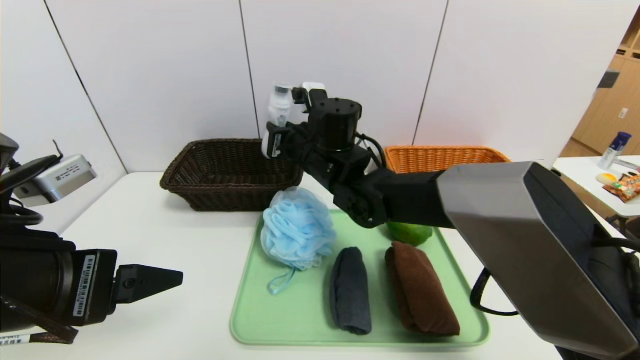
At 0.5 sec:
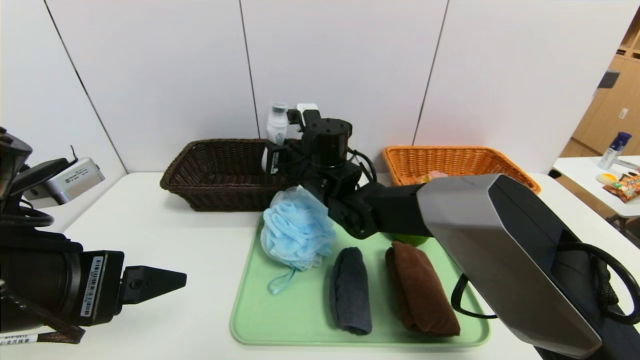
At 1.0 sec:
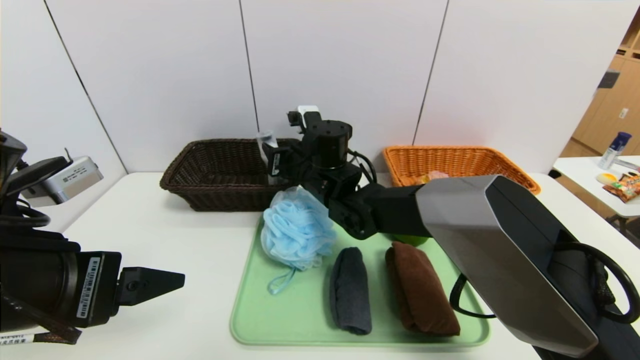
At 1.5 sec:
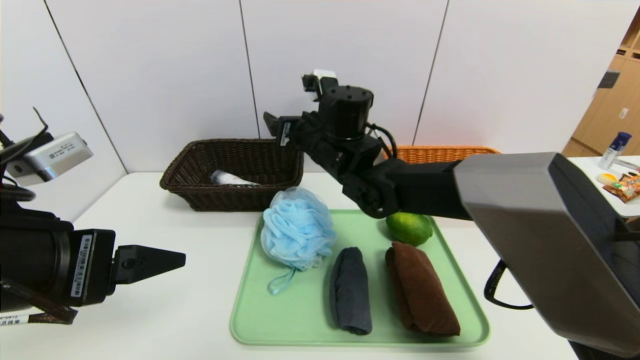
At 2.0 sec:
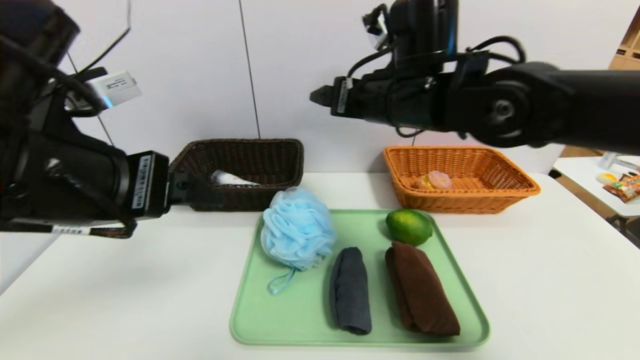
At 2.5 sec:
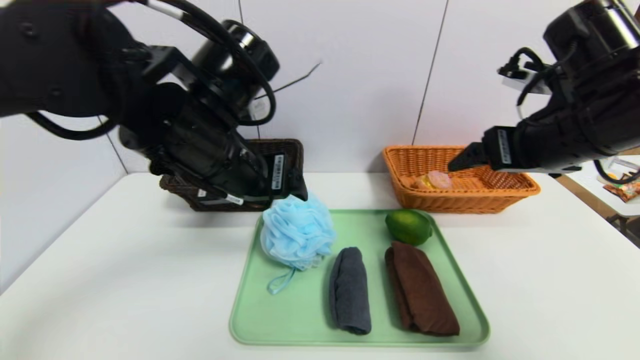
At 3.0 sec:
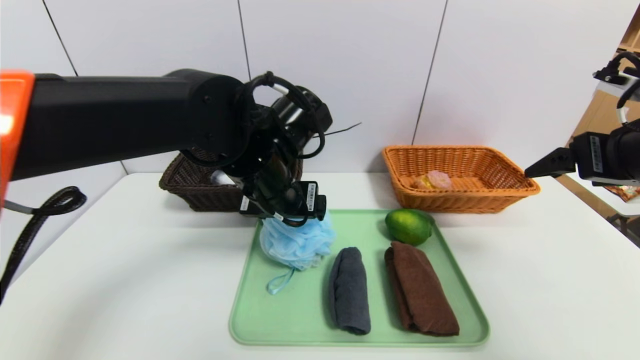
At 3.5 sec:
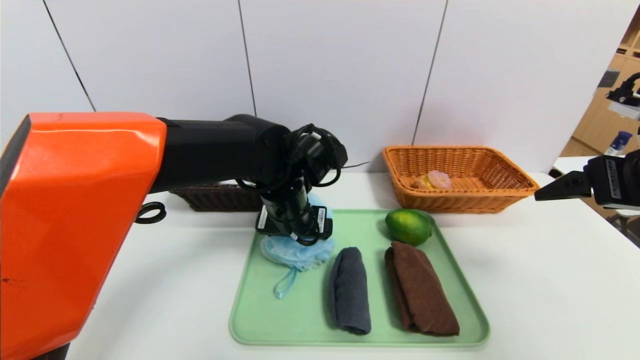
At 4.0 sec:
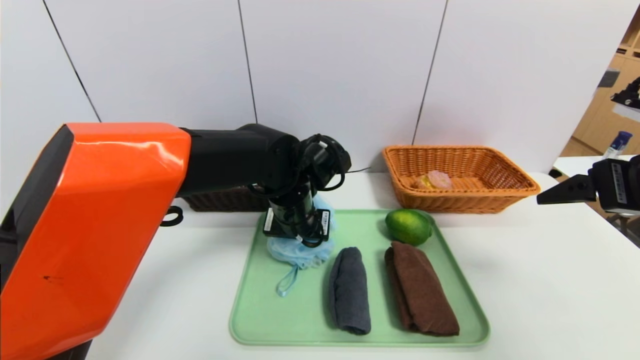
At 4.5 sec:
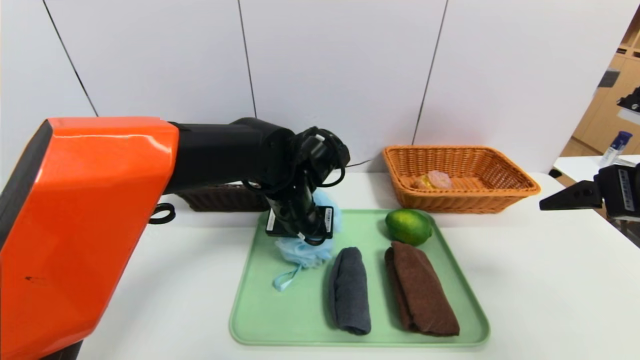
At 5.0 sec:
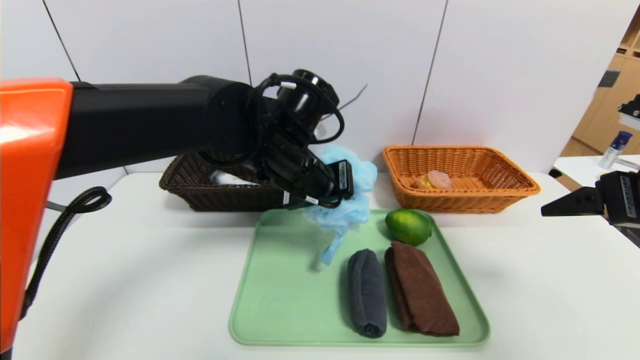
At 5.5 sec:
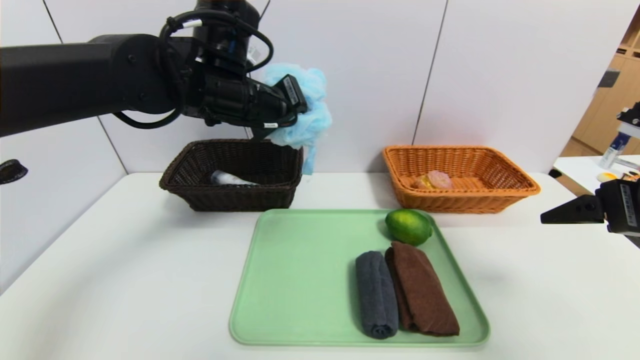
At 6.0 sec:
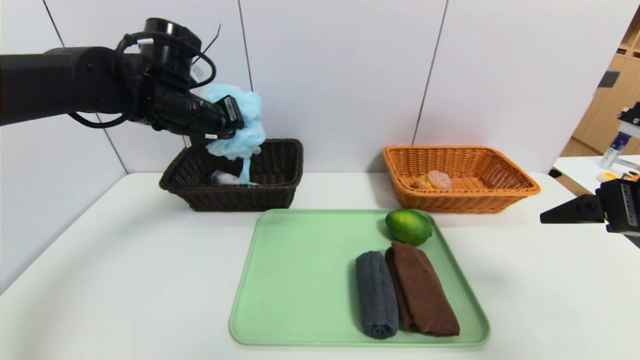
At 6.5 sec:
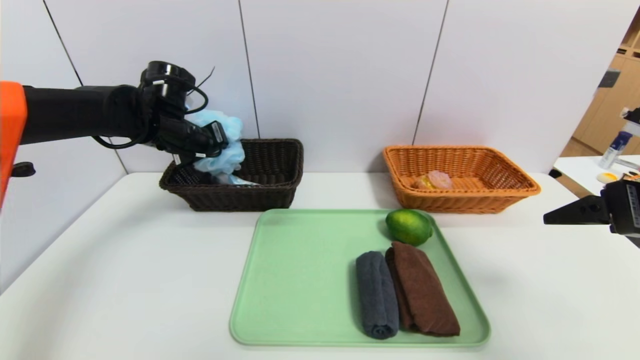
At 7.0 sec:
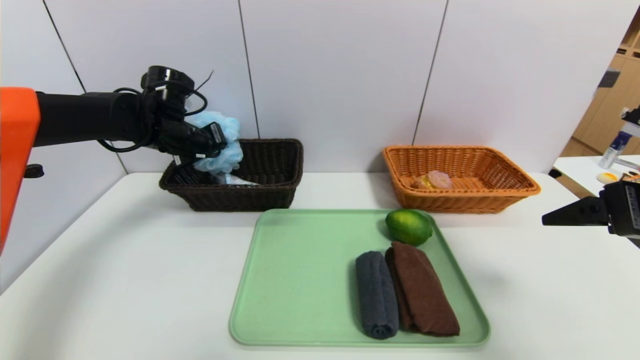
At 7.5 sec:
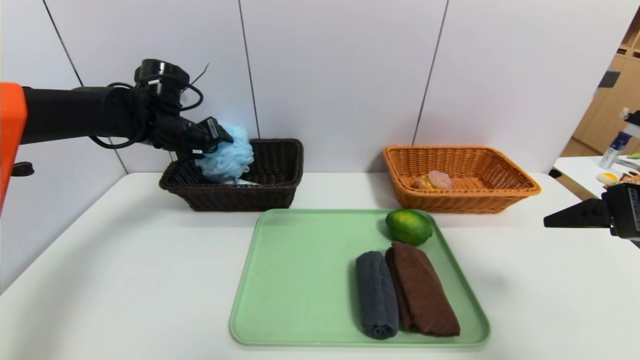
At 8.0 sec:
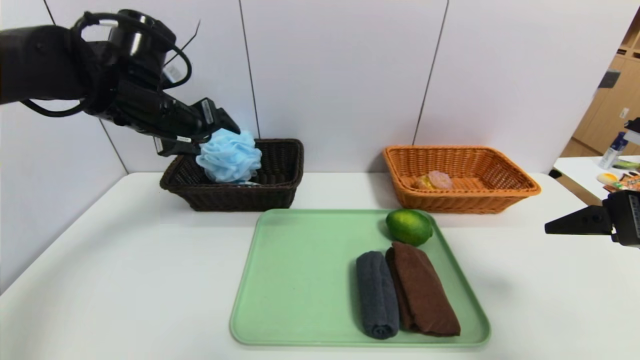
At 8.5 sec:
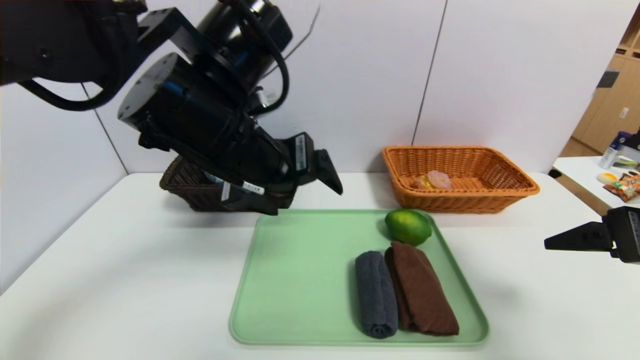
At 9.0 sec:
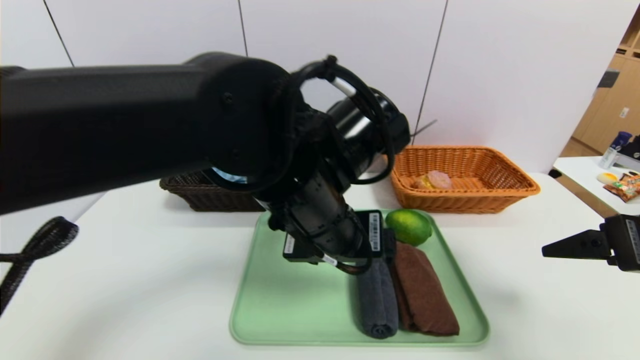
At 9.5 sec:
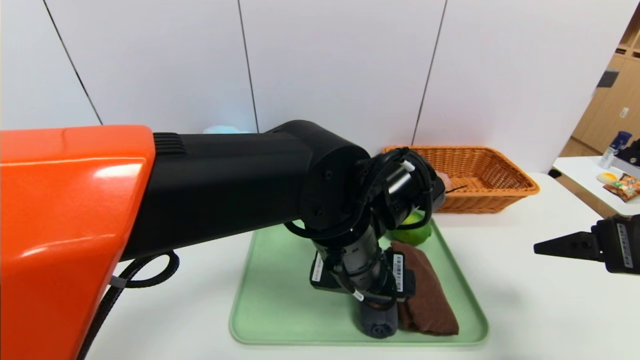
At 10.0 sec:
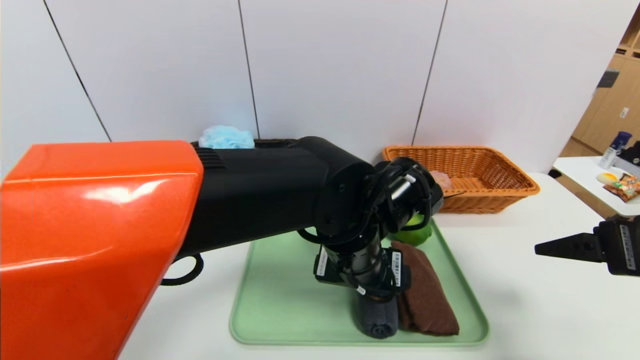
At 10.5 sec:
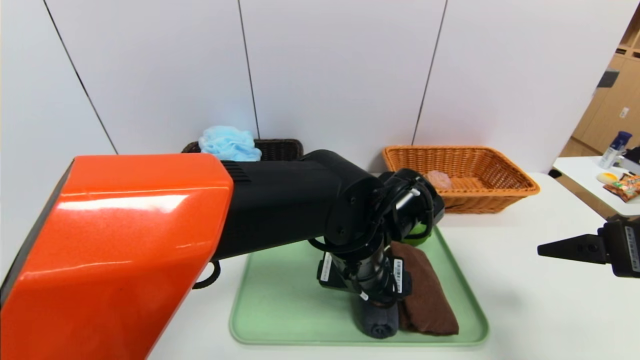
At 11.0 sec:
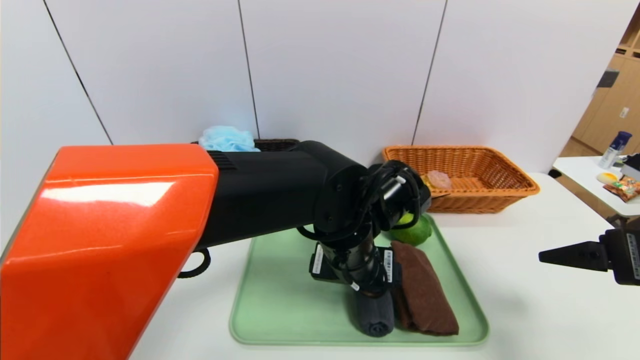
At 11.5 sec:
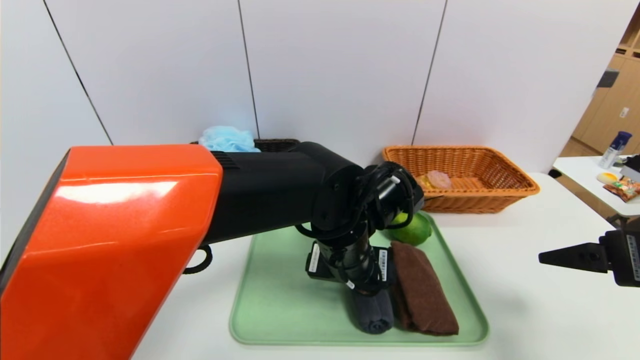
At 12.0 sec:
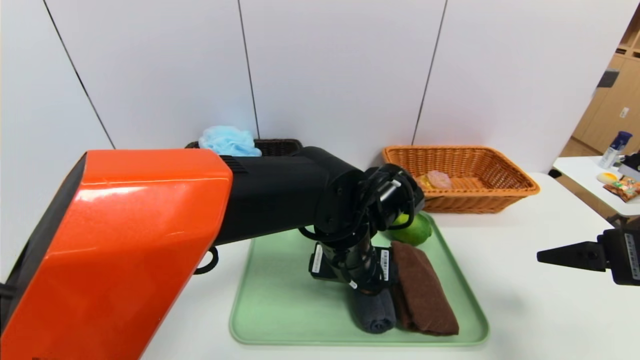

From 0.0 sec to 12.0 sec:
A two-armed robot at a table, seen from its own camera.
Task of the whole recording: place the food in the right basket with the right gripper, and place the non food items in the left basket with the left gripper.
Step, from 1.5 sec to 7.5 sec: Grasp the shower sphere and put it in the left basket.
From 0.0 sec to 2.0 sec: The right gripper shifts some 15 cm to the right, upward and backward, and opens its fingers; the left gripper goes some 5 cm upward.
From 2.0 sec to 4.0 sec: The left gripper goes approximately 25 cm forward, to the right and downward, while the right gripper is displaced to the right and backward by about 25 cm.
From 4.0 sec to 6.0 sec: The left gripper is displaced to the left and upward by approximately 20 cm, and closes.
From 6.0 sec to 8.0 sec: The left gripper opens its fingers.
From 8.0 sec to 10.0 sec: The left gripper moves to the right, downward and backward, some 30 cm.
From 10.0 sec to 12.0 sec: The grippers stay close to where they were, moving slightly.

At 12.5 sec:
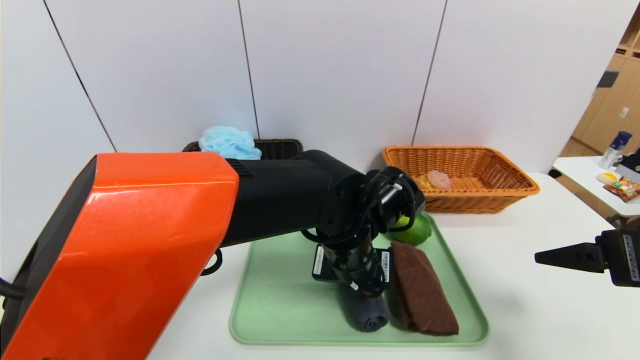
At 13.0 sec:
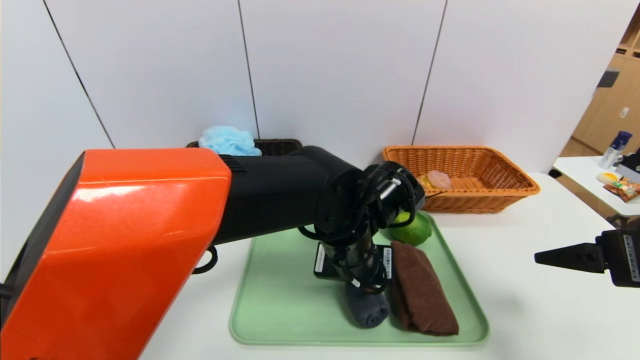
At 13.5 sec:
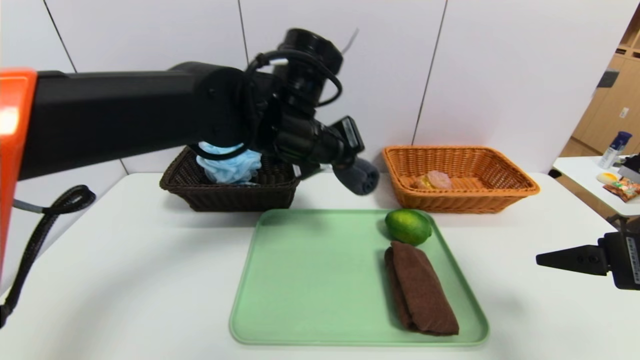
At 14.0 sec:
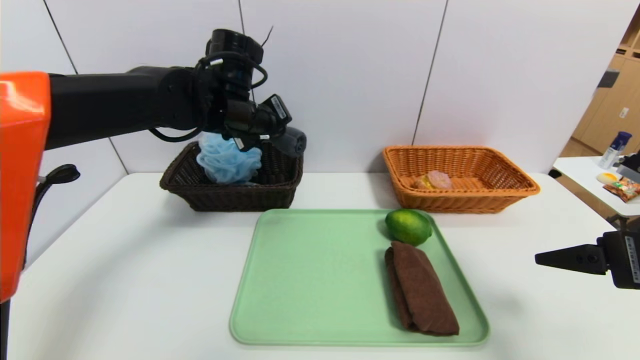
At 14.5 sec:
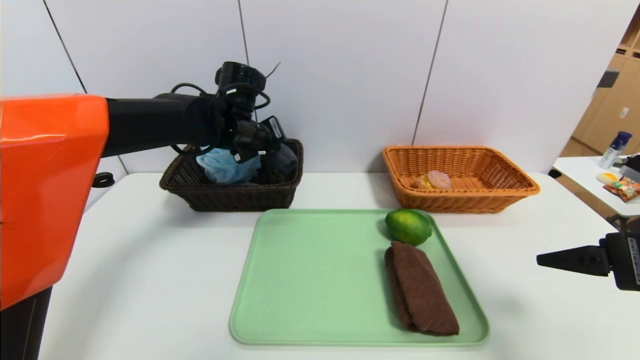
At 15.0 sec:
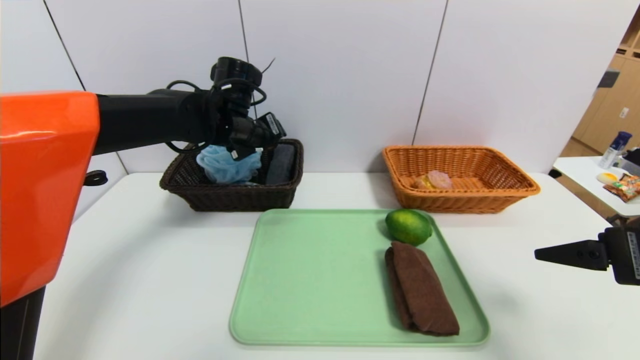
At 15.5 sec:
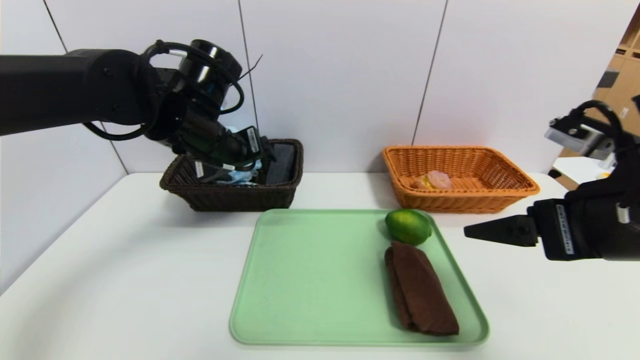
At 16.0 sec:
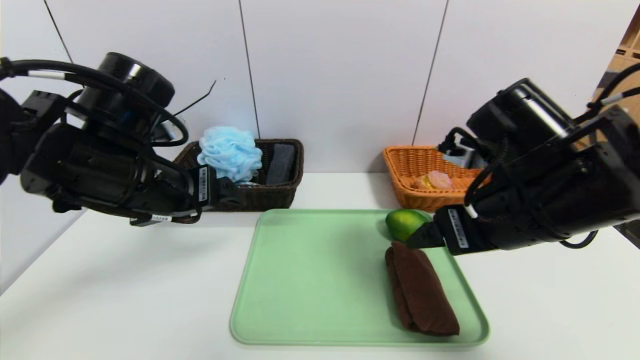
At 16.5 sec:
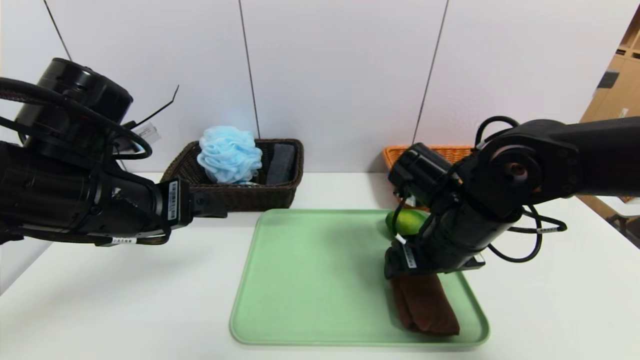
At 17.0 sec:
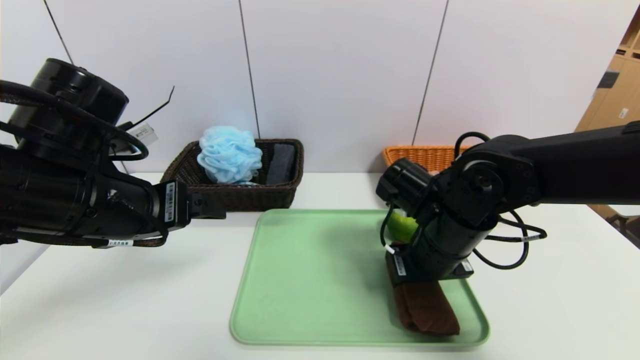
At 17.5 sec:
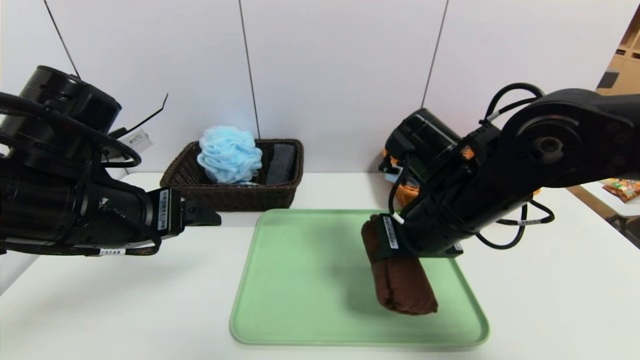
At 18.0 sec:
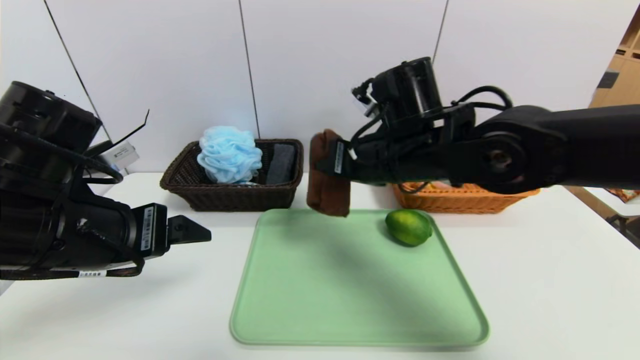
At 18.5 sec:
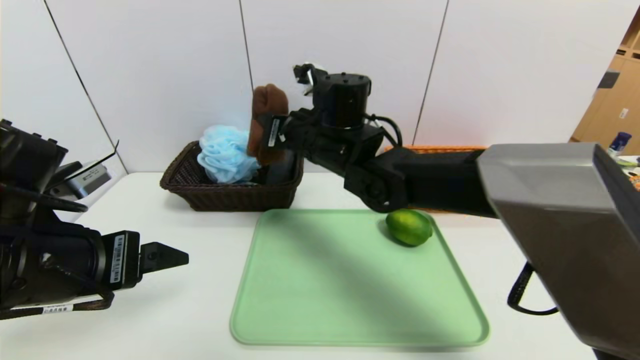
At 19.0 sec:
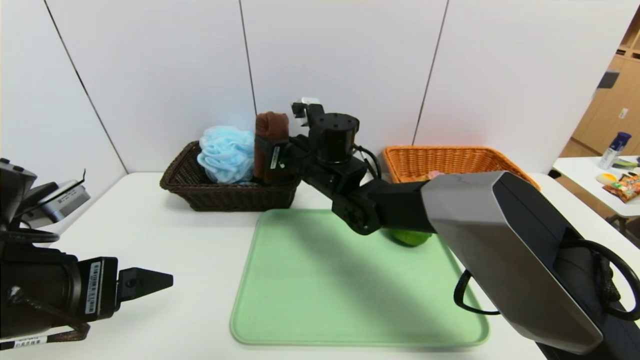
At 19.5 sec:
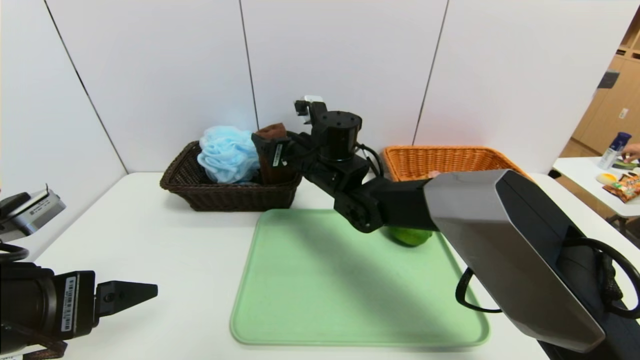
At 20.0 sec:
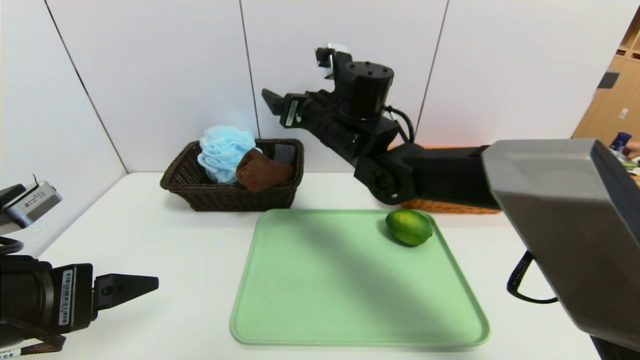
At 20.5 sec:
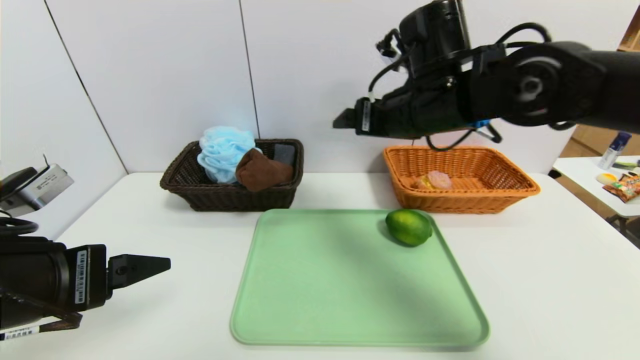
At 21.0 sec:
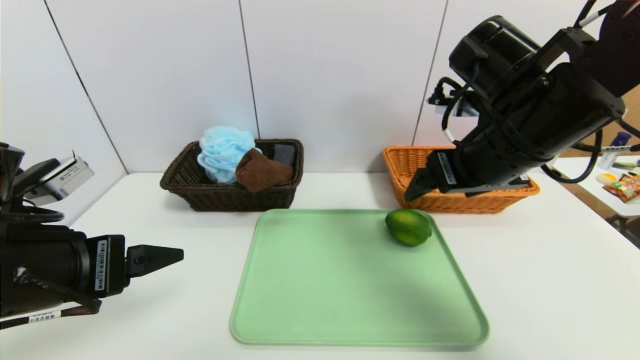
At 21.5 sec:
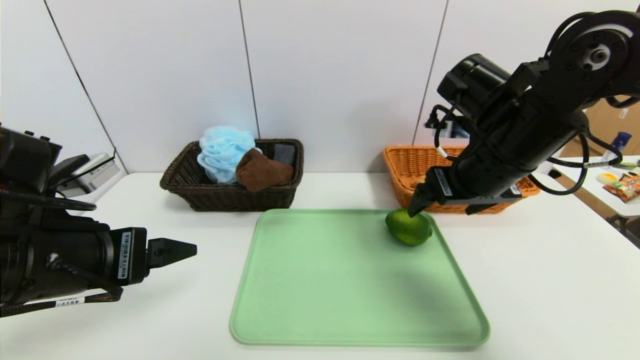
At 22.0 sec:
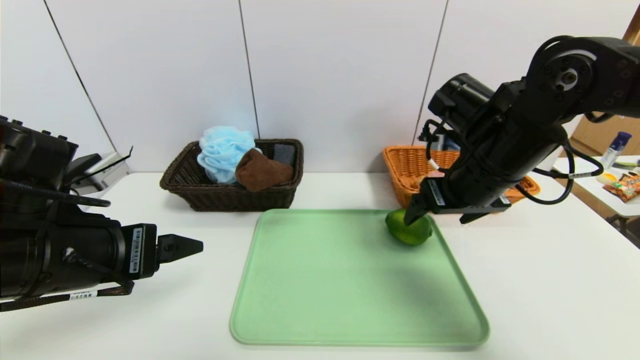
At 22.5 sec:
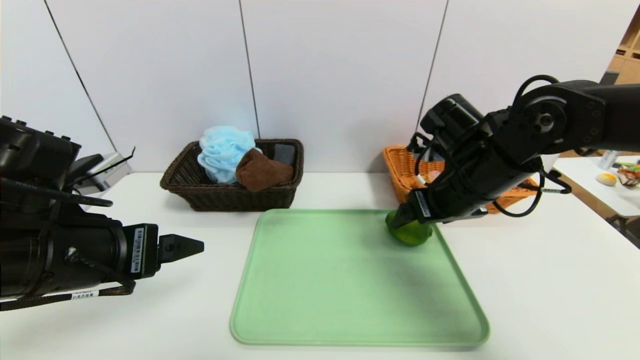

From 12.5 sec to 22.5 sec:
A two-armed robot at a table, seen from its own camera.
Task of the whole recording: place the food in the right basket with the right gripper, and place the non food items in the left basket with the left gripper.
Step, from 12.5 sec to 14.5 sec: Grasp the grey towel and put it in the left basket.
Step, from 15.0 sec to 19.0 sec: Grasp the brown towel and put it in the left basket.
From 12.5 sec to 14.5 sec: The left gripper travels to the left, forward and upward by approximately 25 cm.
From 14.5 sec to 16.5 sec: The left gripper goes some 20 cm backward, and opens up. The right gripper is displaced to the left and forward by about 20 cm.
From 16.5 sec to 18.5 sec: The left gripper heads backward, covering about 5 cm. Meanwhile the right gripper moves to the left and forward, approximately 20 cm, and closes its fingers.
From 18.5 sec to 20.5 sec: The right gripper goes some 15 cm to the right and upward, and opens its fingers.
From 20.5 sec to 22.5 sec: The right gripper travels downward and to the right by some 10 cm.
